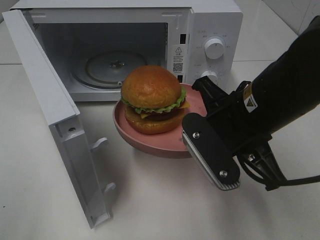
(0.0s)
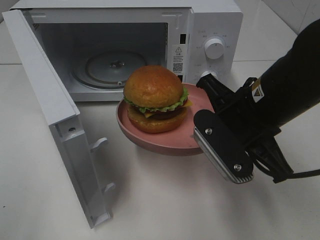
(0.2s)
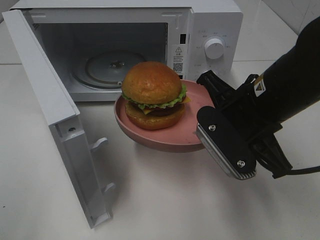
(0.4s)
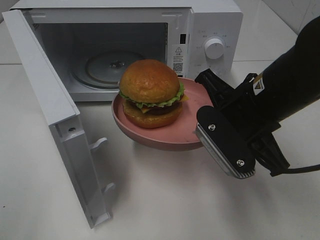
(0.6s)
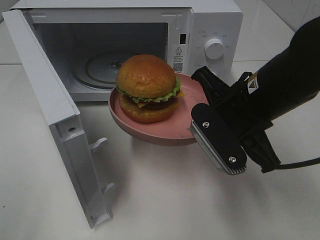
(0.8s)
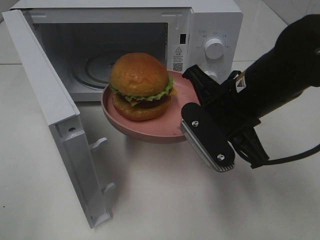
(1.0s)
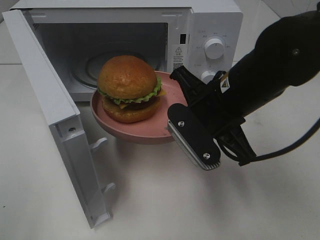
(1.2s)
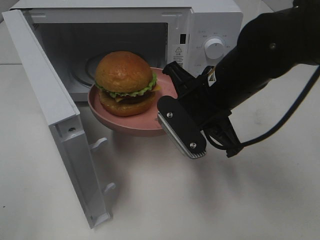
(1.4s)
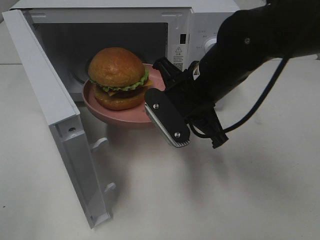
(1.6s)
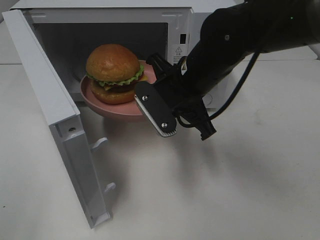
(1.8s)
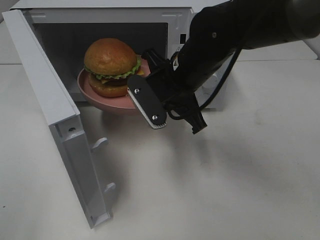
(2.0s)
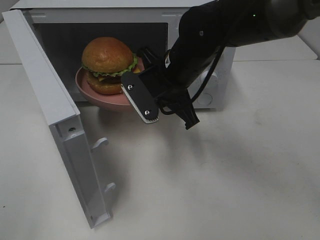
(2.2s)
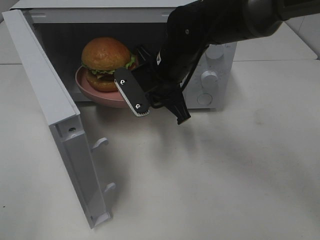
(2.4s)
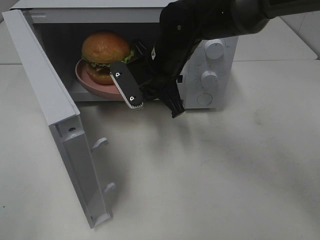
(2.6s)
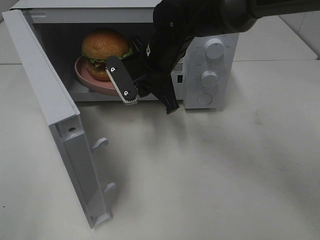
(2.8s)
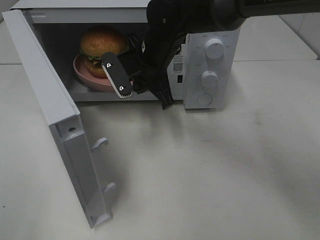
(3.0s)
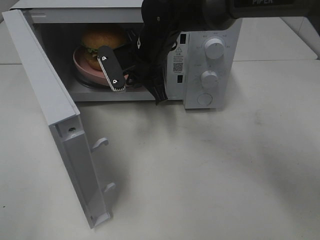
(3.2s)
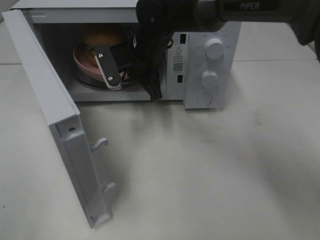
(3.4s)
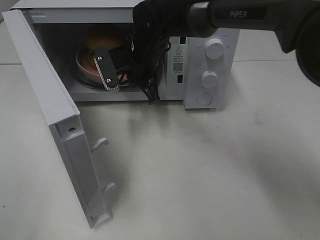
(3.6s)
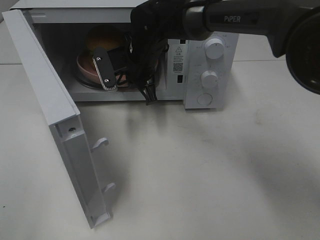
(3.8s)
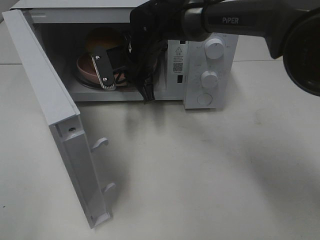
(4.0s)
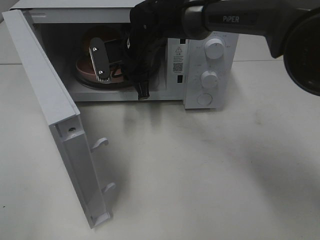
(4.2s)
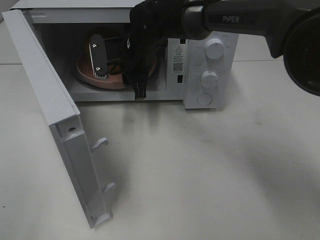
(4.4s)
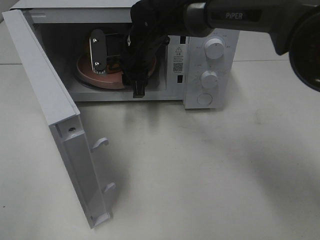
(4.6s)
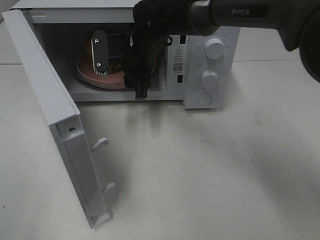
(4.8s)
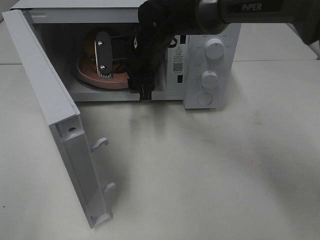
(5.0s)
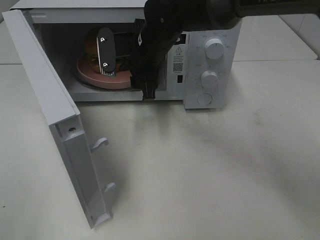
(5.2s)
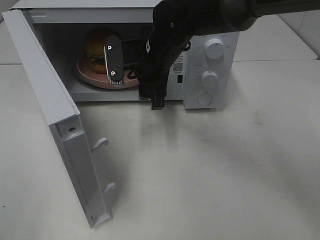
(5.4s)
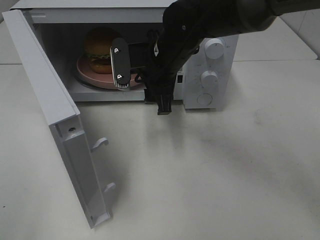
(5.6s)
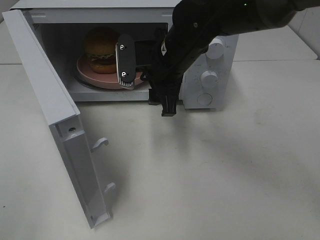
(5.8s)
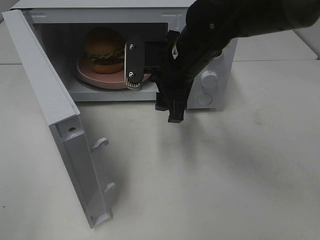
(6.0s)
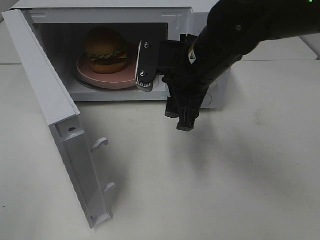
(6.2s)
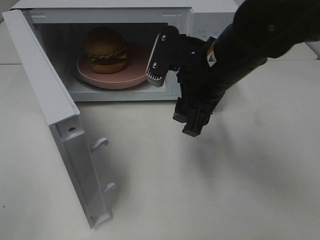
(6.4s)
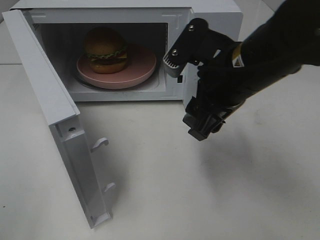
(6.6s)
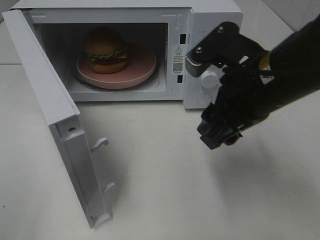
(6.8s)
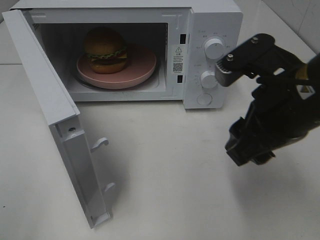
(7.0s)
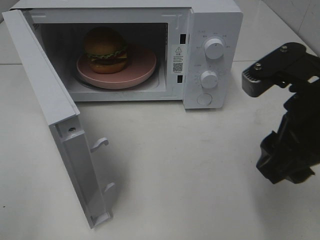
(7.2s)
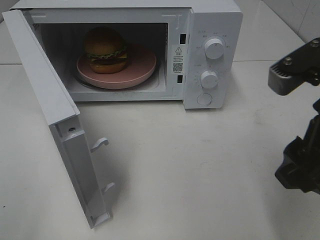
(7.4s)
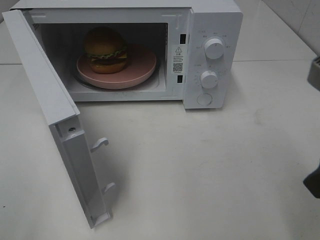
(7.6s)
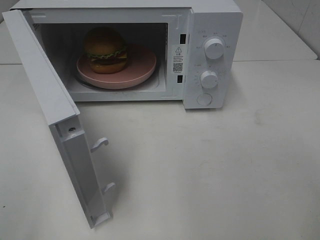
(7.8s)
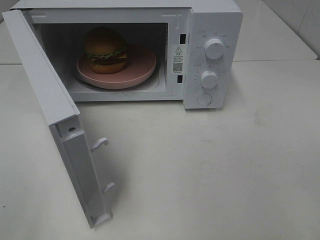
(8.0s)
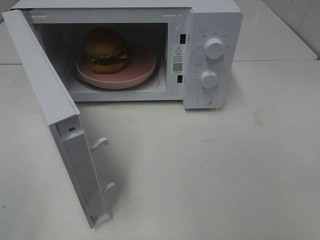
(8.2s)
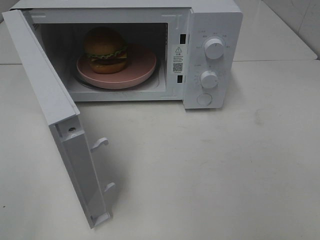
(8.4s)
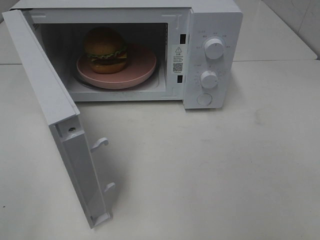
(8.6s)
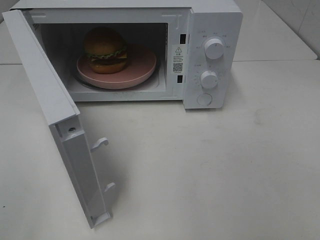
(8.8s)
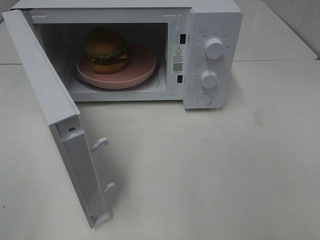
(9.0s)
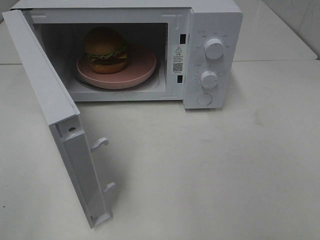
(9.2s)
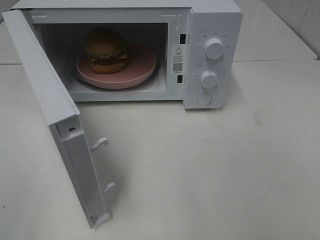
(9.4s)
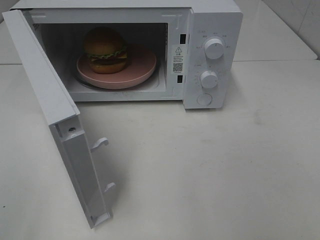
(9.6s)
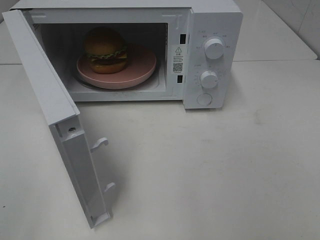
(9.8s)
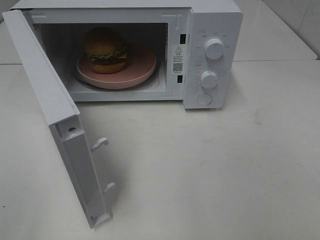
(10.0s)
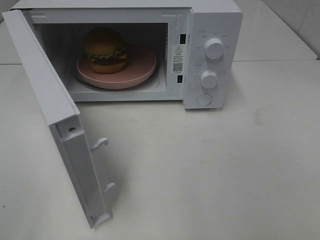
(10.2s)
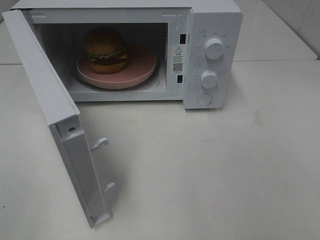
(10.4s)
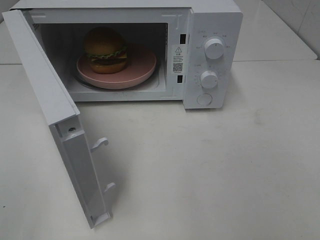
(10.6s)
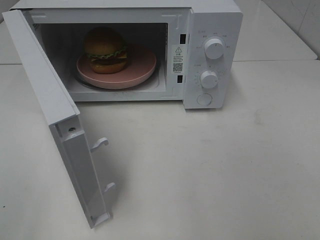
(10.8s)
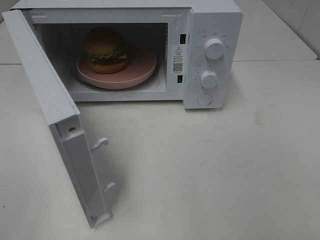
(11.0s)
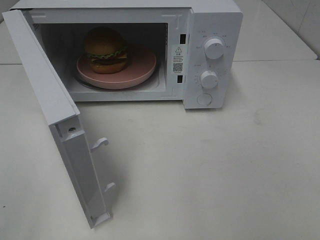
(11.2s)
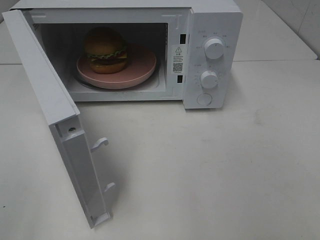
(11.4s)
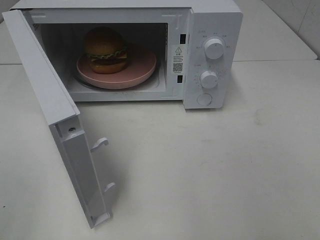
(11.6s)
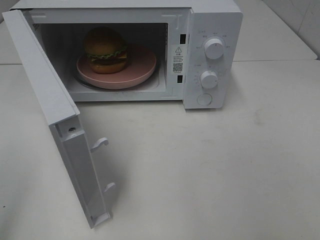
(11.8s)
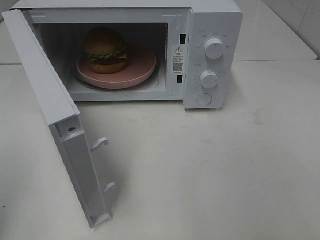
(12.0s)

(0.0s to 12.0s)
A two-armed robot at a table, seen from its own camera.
Task of the whole recording: Heat the burger.
Step, 0.0s - 4.6s: Right hand: place the plate in the microwave.
0.0s - 1.6s: The right gripper heads forward, covering about 5 cm.
1.6s - 3.0s: The right gripper heads forward and to the left, covering approximately 10 cm.
3.0s - 4.4s: The right gripper ends up some 5 cm from where it was, and opens up.
4.4s - 6.0s: The right gripper travels backward and to the right by approximately 15 cm.
6.0s - 7.6s: The right gripper shifts some 25 cm backward and to the right.
7.6s - 9.0s: The right gripper goes approximately 15 cm backward and to the right.
9.0s - 10.4s: Neither gripper changes place.

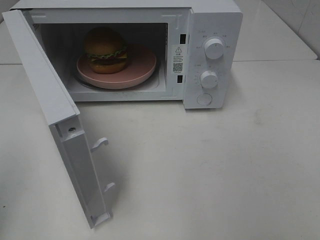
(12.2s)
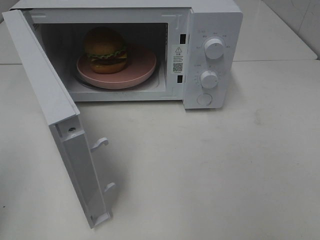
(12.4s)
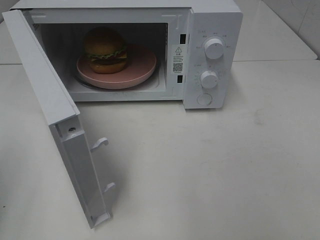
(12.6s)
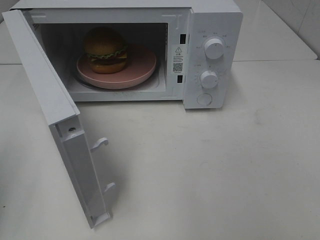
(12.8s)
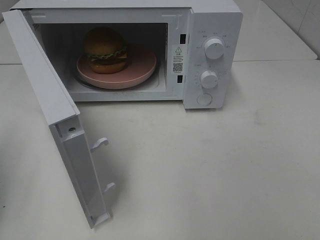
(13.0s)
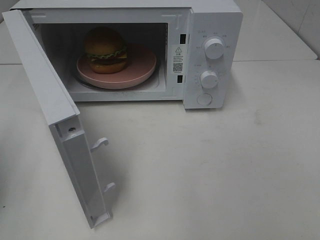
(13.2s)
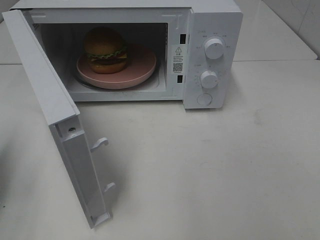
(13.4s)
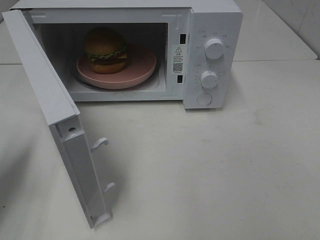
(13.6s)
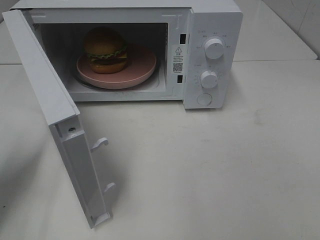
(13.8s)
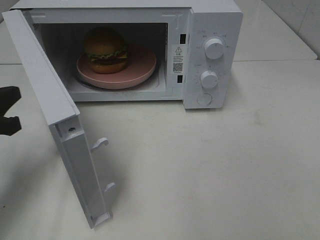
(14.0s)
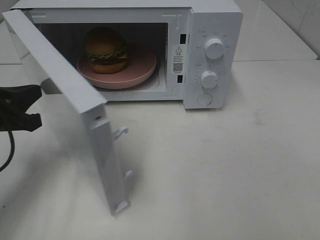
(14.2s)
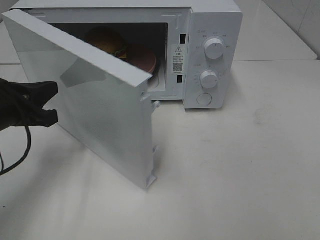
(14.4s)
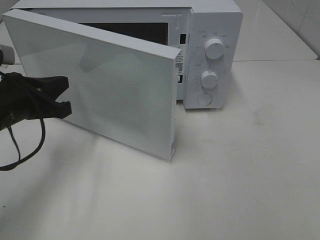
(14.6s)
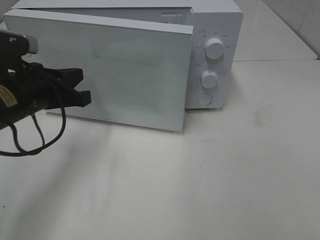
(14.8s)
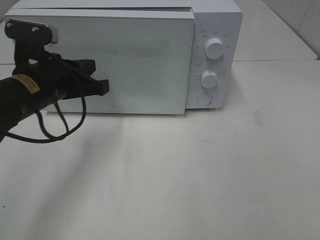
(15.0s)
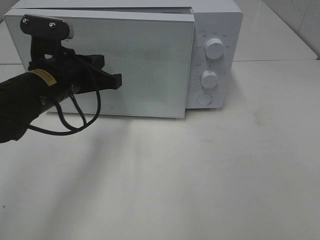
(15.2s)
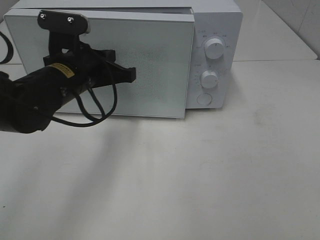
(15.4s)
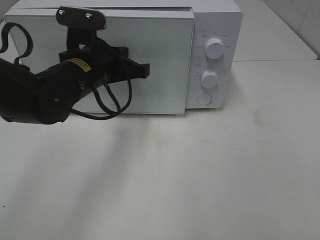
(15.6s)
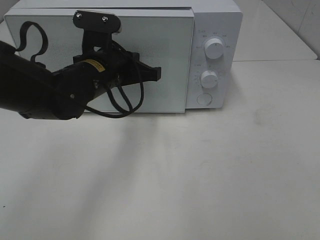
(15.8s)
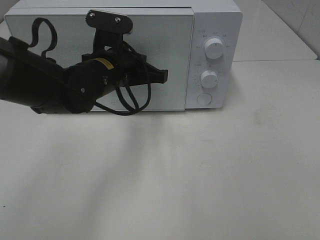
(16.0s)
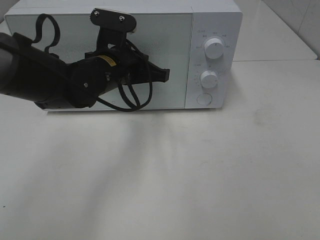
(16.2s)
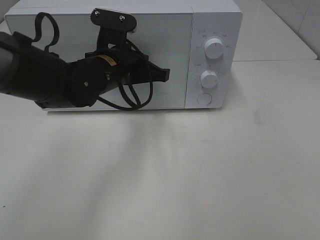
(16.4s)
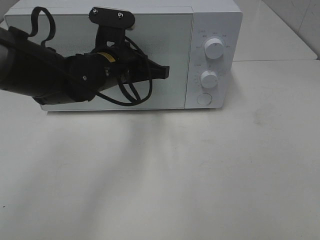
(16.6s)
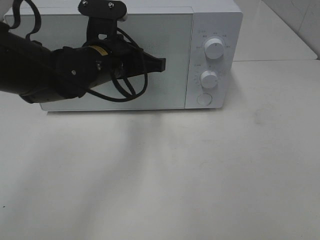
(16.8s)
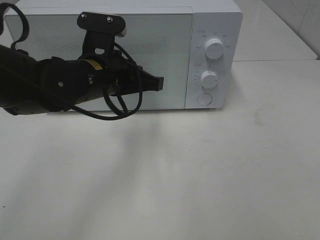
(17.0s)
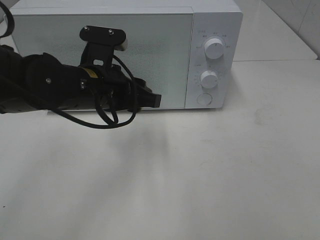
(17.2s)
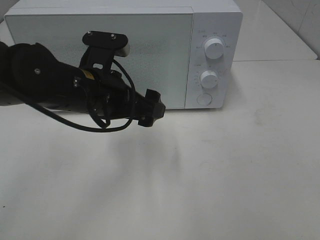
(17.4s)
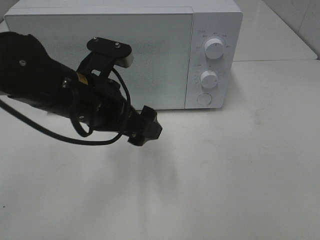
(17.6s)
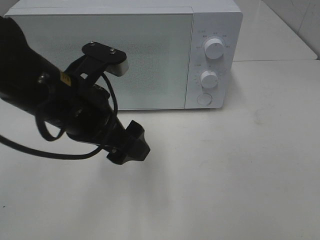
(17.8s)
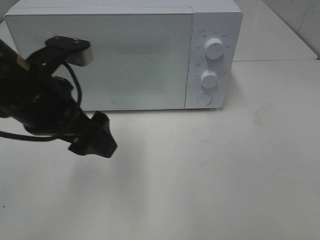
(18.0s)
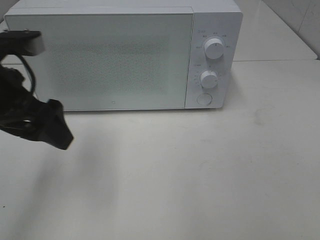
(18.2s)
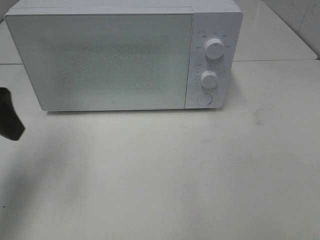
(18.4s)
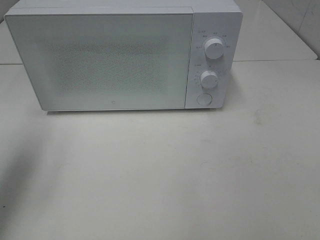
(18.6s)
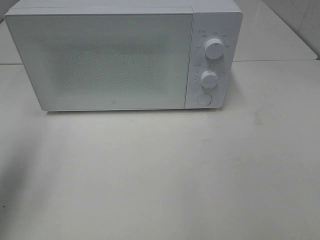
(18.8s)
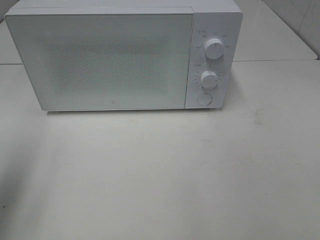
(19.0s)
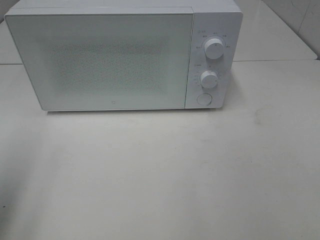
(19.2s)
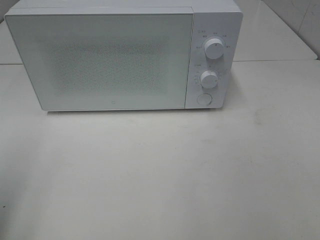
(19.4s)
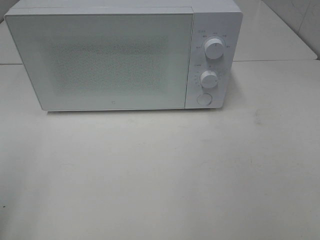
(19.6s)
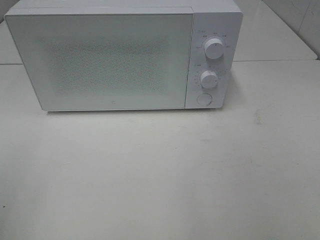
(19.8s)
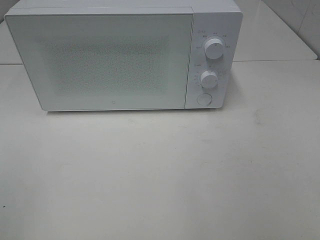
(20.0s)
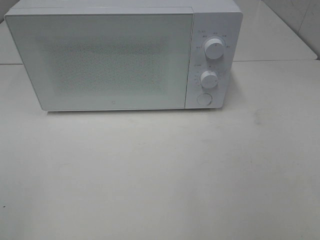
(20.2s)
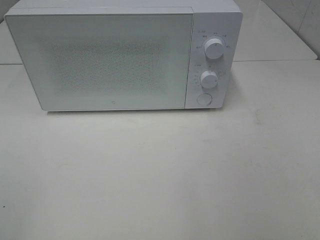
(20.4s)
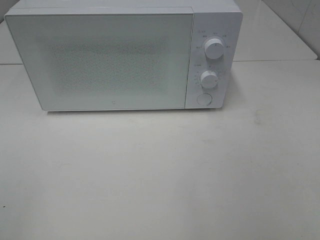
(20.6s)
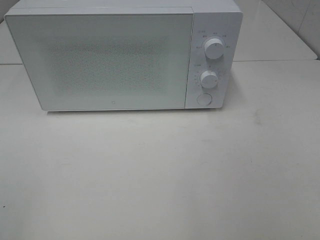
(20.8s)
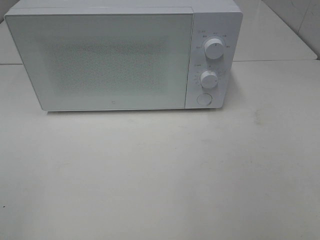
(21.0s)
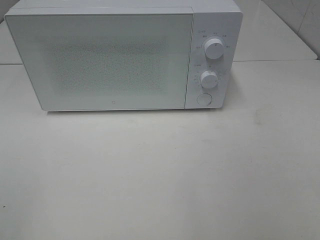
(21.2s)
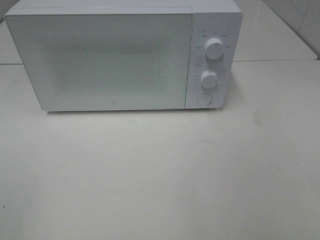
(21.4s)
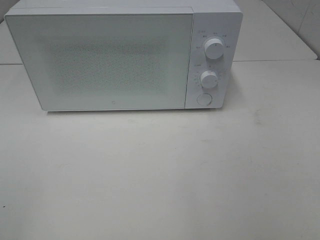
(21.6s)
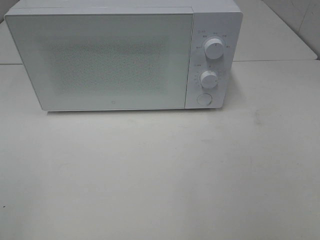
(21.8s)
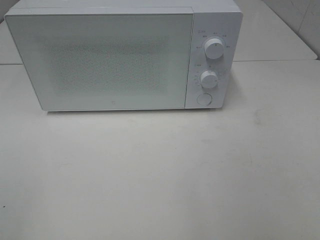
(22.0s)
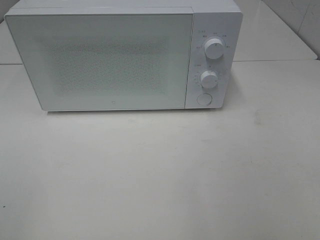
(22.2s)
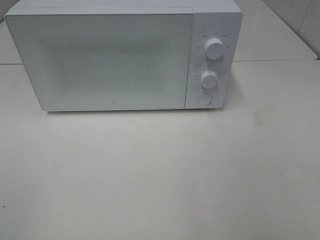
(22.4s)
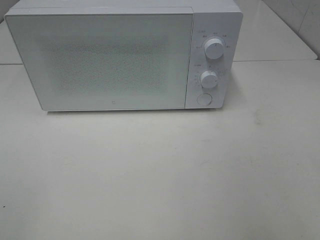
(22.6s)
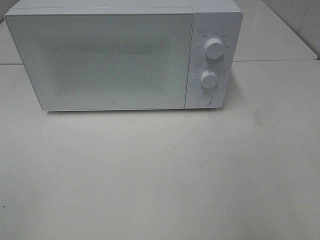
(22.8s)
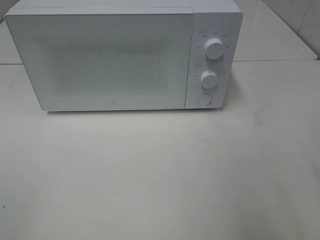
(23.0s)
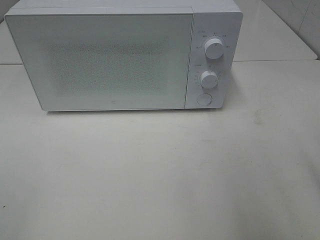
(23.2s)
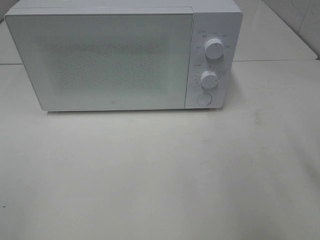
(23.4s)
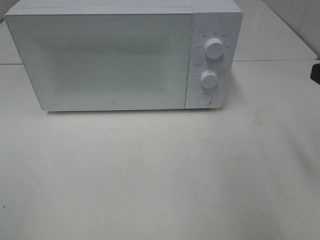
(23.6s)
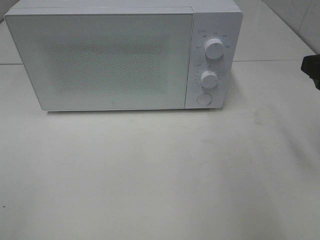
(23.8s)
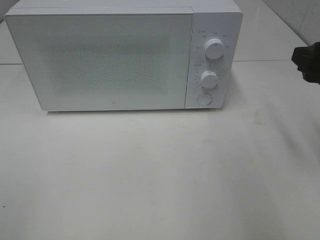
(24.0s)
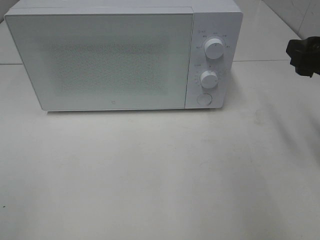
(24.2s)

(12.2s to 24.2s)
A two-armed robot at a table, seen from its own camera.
Task of the whole recording: Heat the burger.
Step, 12.2s - 17.2s: Left hand: close the microwave door.
12.2s - 13.8s: The left gripper is displaced forward and downward by roughly 15 cm.
13.8s - 15.2s: The left gripper shifts roughly 20 cm to the right and forward.
15.2s - 16.6s: The left gripper shifts approximately 5 cm to the right.
16.6s - 18.2s: The left gripper travels to the left, backward and upward by some 20 cm, and opens up.
18.2s - 19.8s: The left gripper moves backward and to the left, about 20 cm.
22.6s - 24.2s: The right gripper is displaced forward by about 20 cm.
